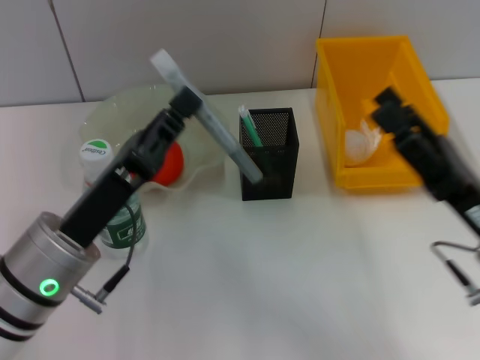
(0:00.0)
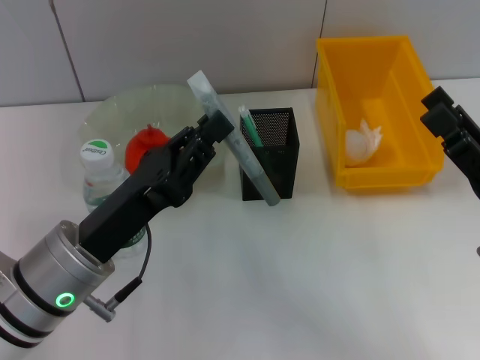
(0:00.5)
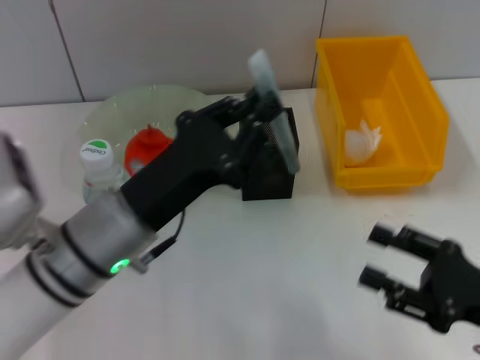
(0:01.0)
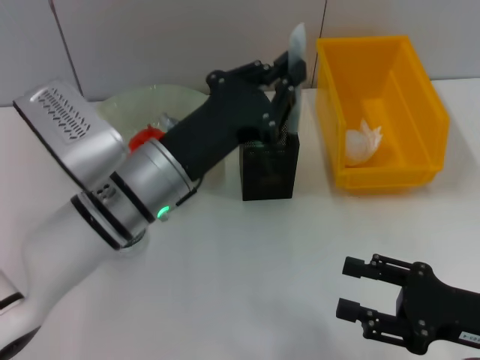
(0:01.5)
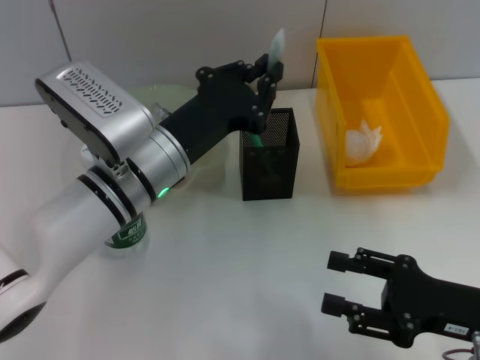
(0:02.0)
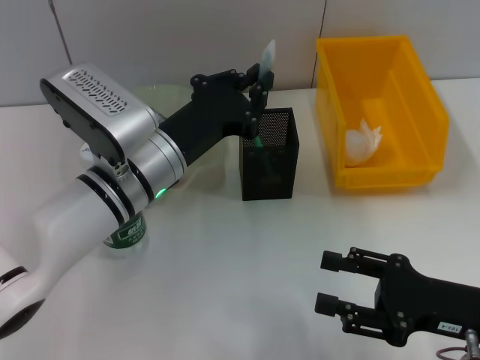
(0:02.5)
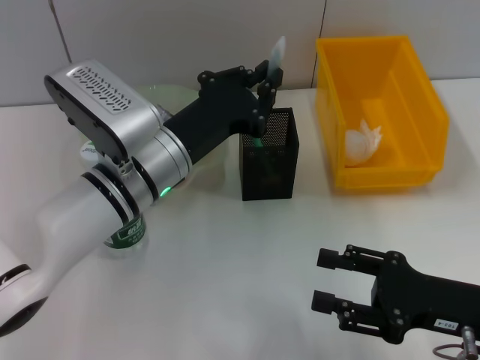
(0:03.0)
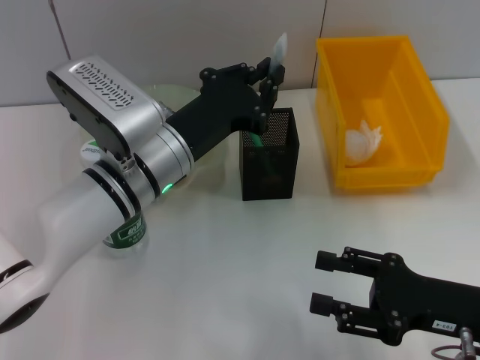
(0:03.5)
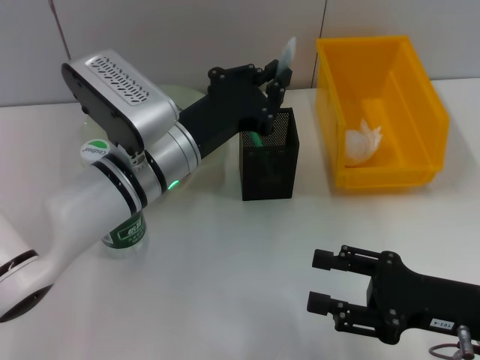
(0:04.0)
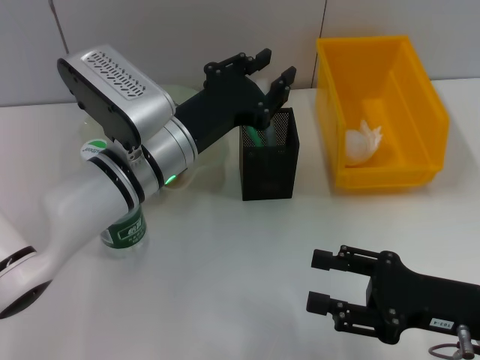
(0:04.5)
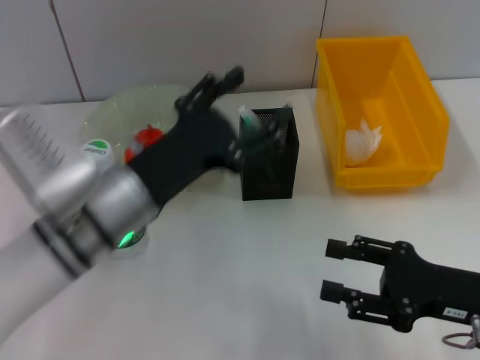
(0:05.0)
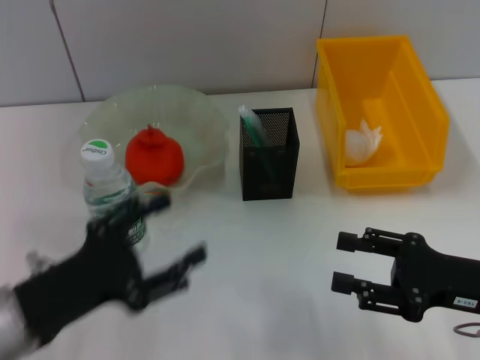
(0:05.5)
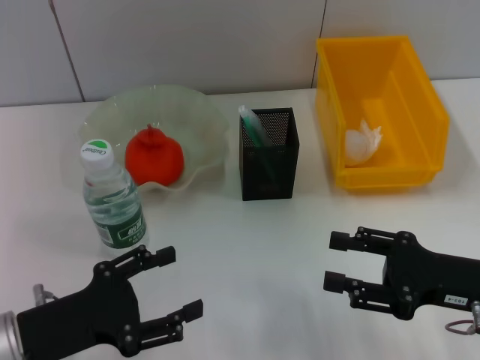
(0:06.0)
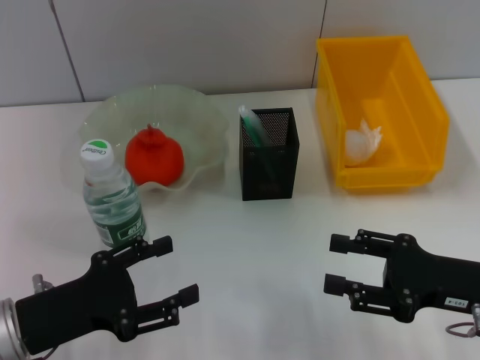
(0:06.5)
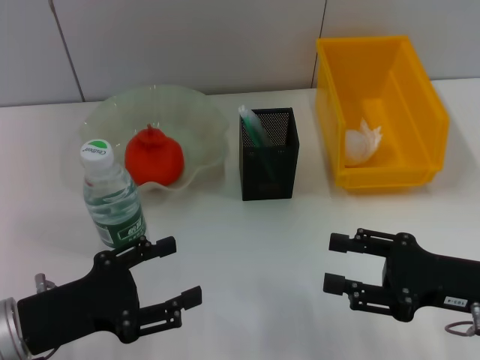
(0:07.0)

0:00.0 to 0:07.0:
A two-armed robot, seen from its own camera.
Step, 0:00.0 to 0:05.0: Place the gray glue into the pen holder with the left hand.
0:00.0 to 0:02.0: The right gripper changes place by approximately 5 cm; the left gripper travels forward and to the right by about 10 cm.
0:02.0 to 0:03.5: Both grippers stay put.
0:03.5 to 0:05.0: The left gripper ends up roughly 5 cm from where it was, and opens up.
0:05.0 to 0:07.0: The left gripper is displaced to the left and backward by about 15 cm.

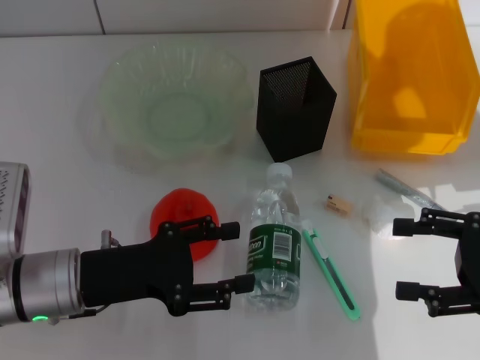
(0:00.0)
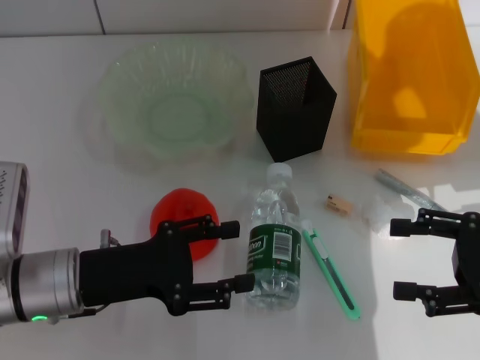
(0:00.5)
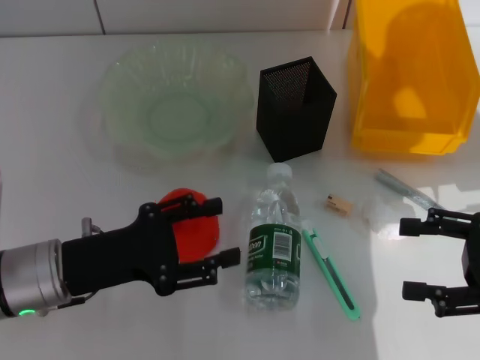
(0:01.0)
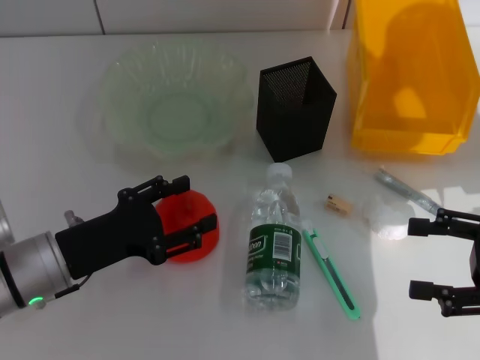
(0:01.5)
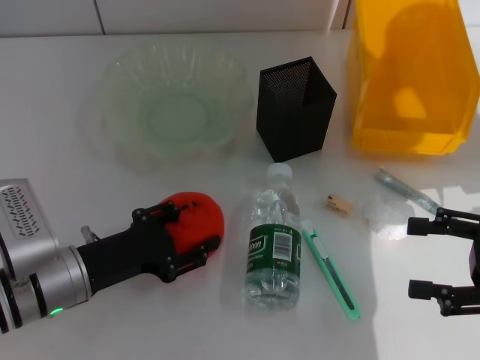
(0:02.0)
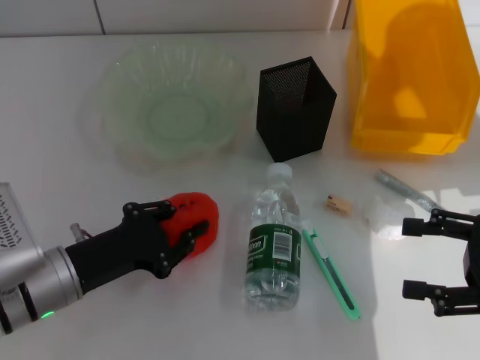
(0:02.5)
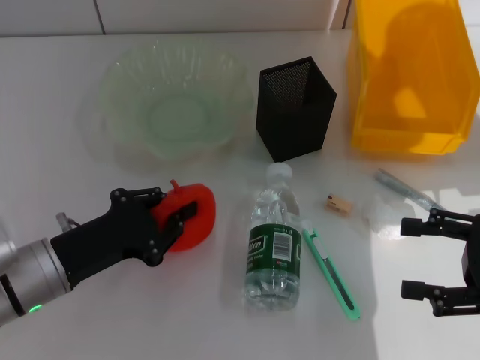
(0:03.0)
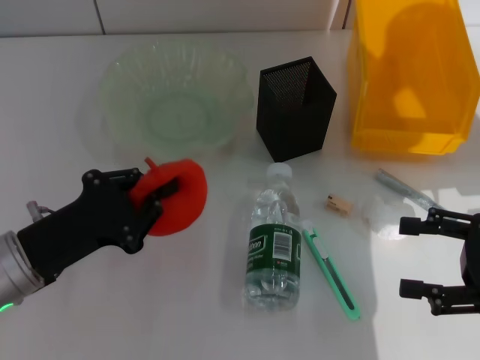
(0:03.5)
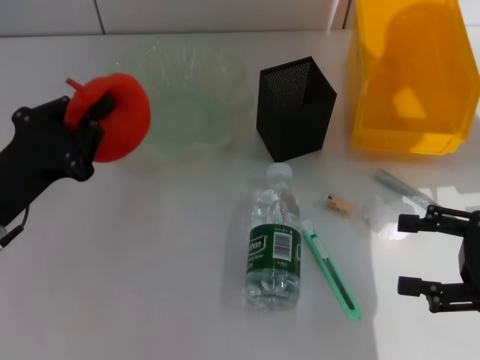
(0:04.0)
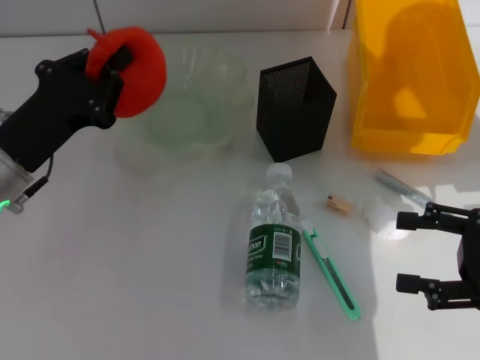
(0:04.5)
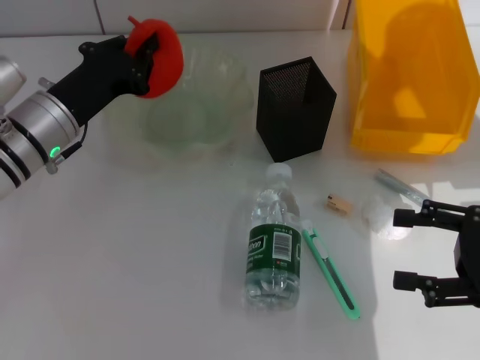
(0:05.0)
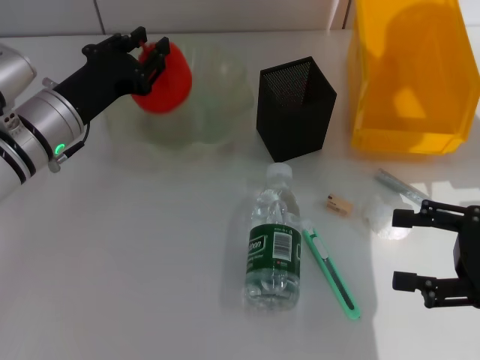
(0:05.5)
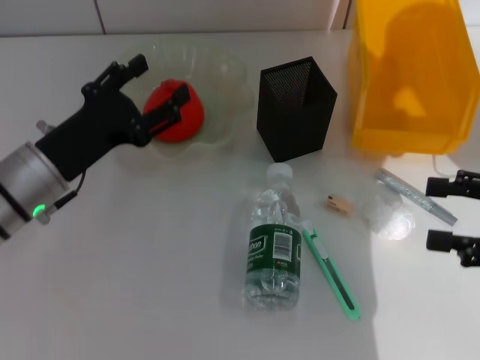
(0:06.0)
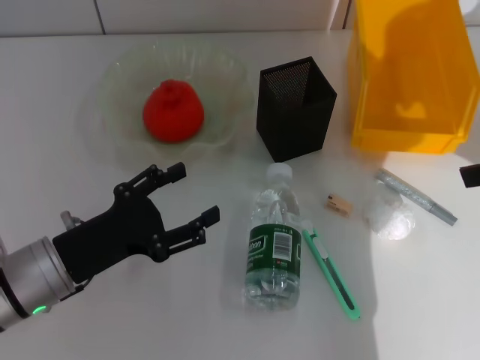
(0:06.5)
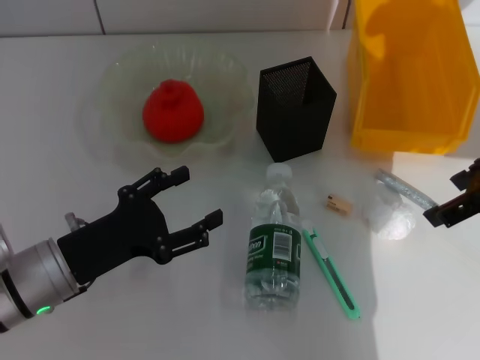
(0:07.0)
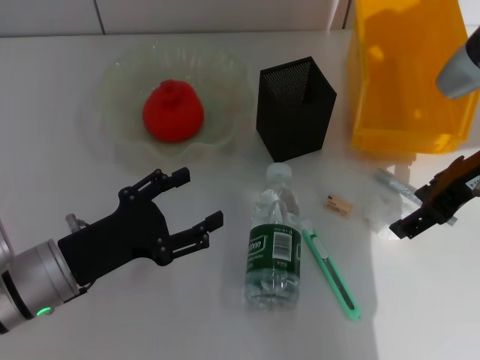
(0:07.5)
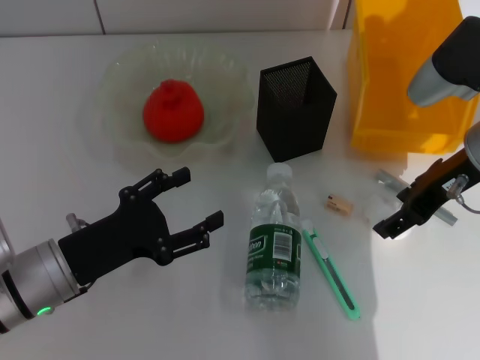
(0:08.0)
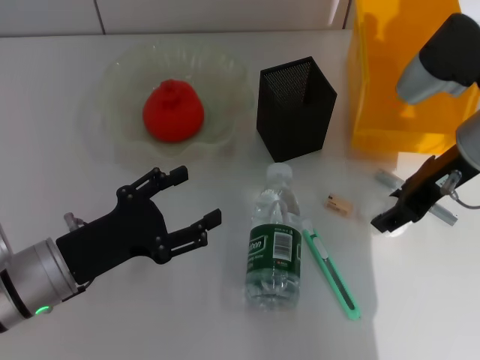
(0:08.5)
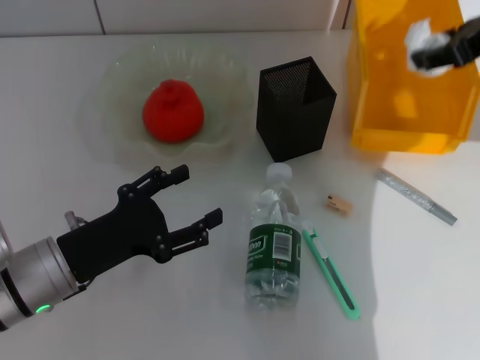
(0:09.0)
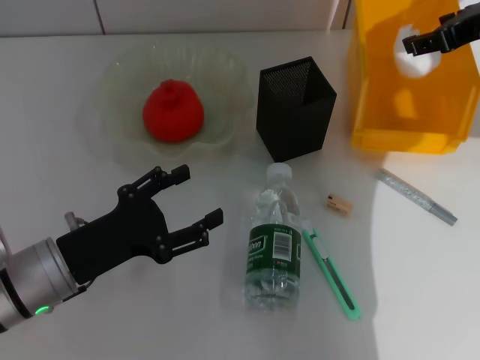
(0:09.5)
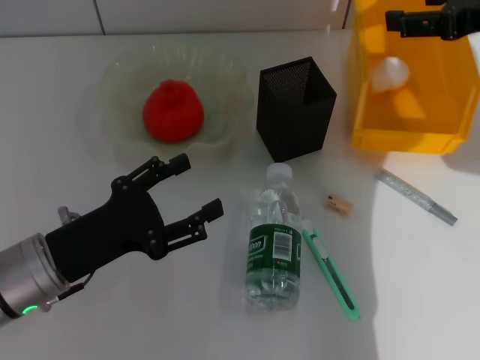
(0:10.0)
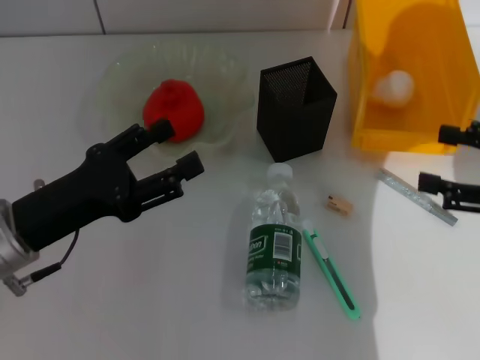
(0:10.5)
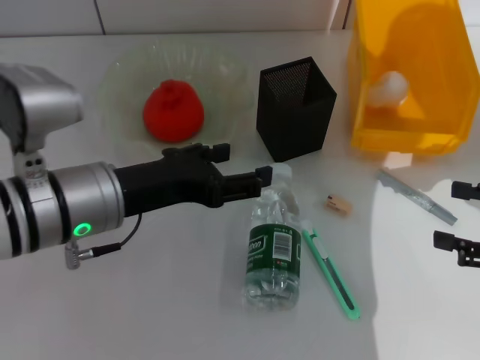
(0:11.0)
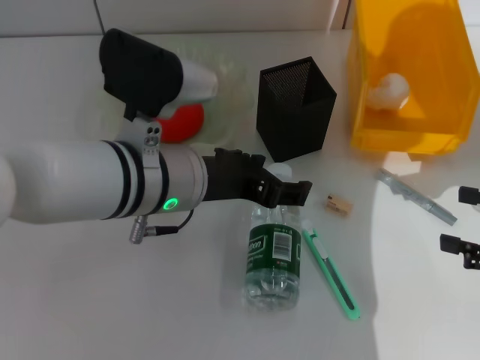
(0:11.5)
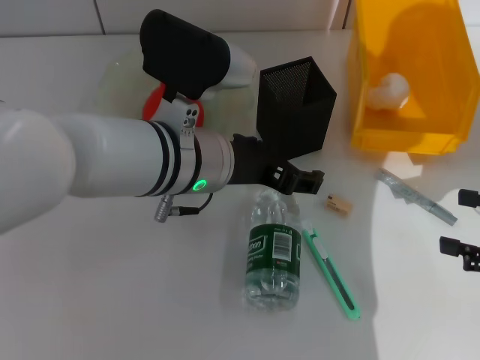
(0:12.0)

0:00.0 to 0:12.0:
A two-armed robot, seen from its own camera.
Step, 0:00.0 to 0:02.0: Grab the orange with the left hand.
Step, 0:02.5 to 0:05.5: Place the orange into the fruit bowl with the left hand.
Step, 0:06.0 to 0:08.0: Grab the paper ball with the right hand.
Step, 0:08.5 to 0:10.0: Place the paper ball into the trash can with the right hand.
0:02.0 to 0:04.0: The left gripper shifts about 5 cm upward, and closes its fingers.
0:04.0 to 0:06.0: The left gripper travels forward by roughly 5 cm, and opens up.
0:06.0 to 0:08.0: The right gripper moves to the left and forward, roughly 15 cm. Meanwhile the left gripper is displaced backward by about 5 cm.
0:08.0 to 0:10.0: The right gripper moves upward and to the right, approximately 10 cm, and closes and opens again.
0:10.0 to 0:12.0: The right gripper goes roughly 20 cm downward, backward and to the right. The left gripper moves to the right, upward and forward, roughly 20 cm.

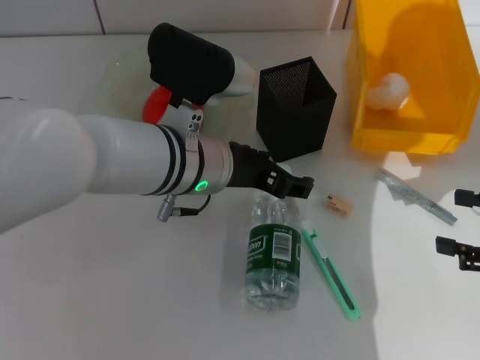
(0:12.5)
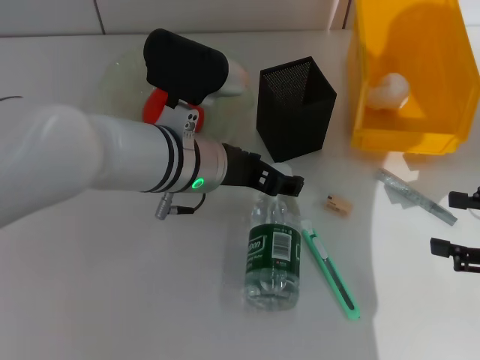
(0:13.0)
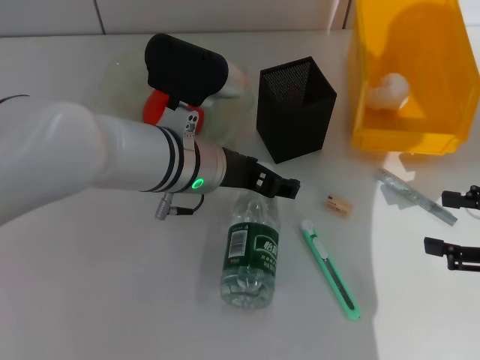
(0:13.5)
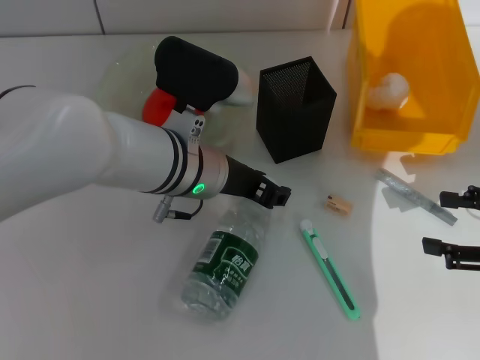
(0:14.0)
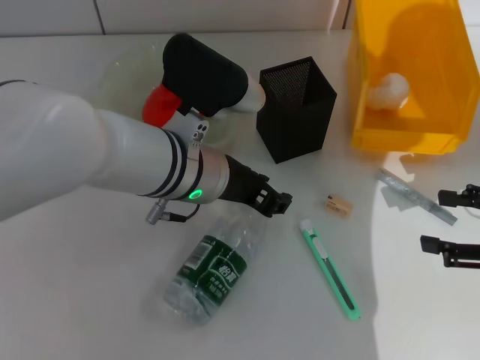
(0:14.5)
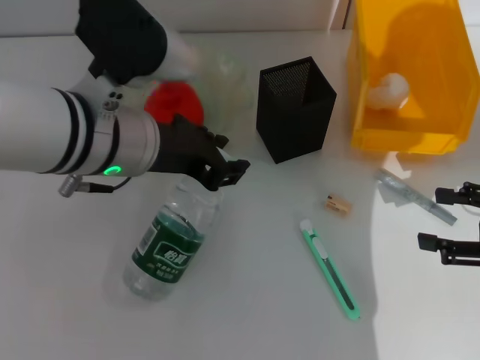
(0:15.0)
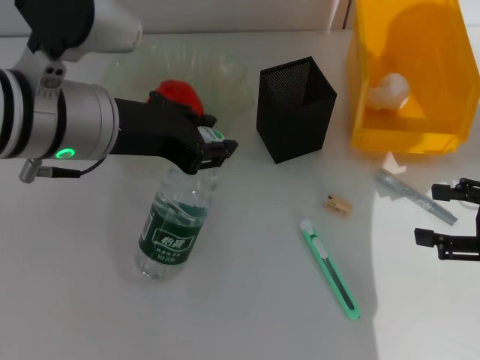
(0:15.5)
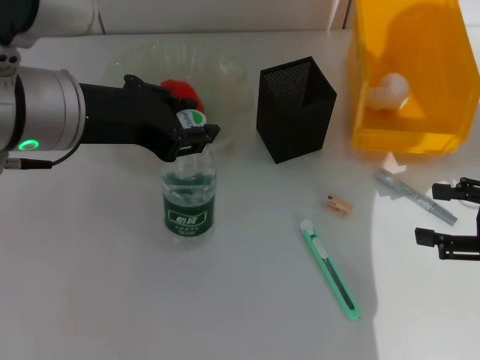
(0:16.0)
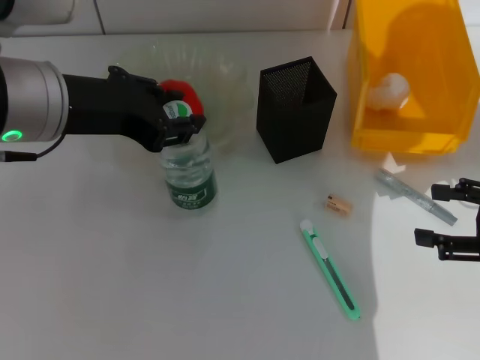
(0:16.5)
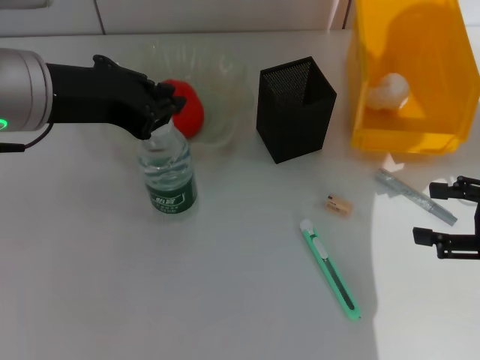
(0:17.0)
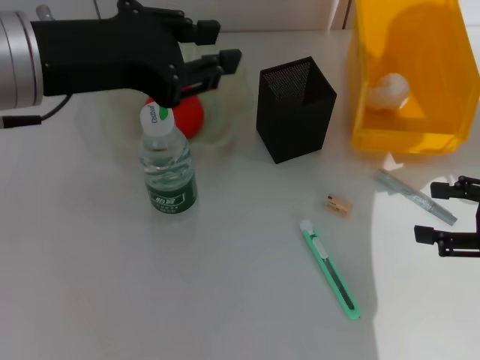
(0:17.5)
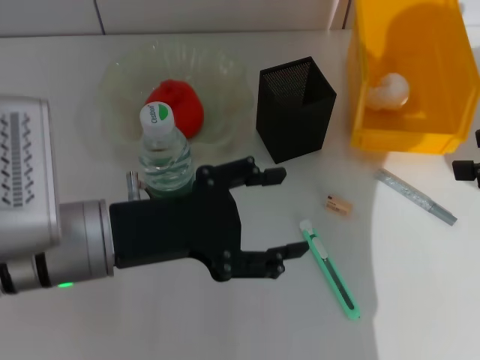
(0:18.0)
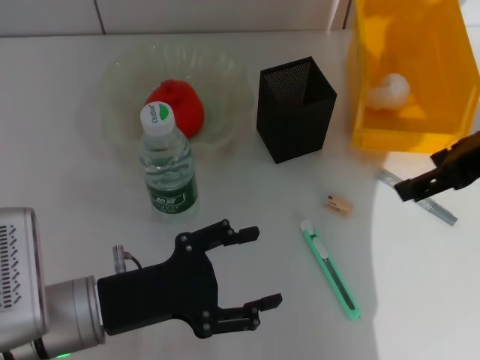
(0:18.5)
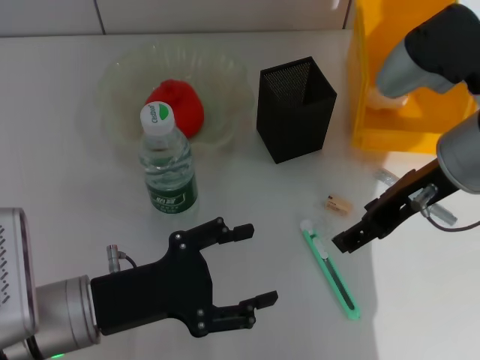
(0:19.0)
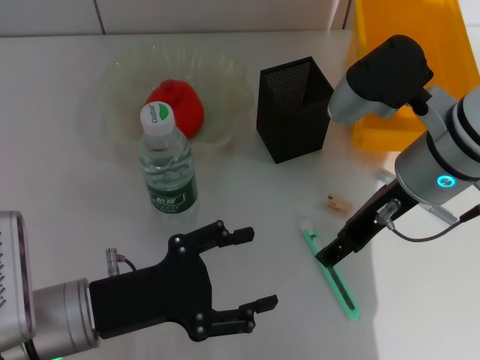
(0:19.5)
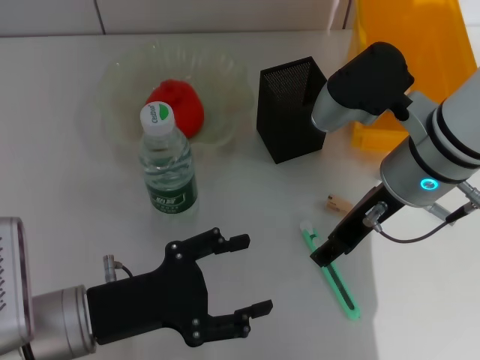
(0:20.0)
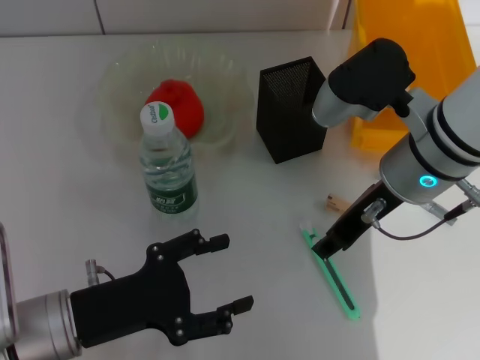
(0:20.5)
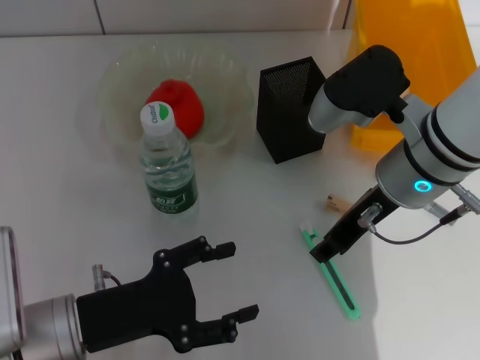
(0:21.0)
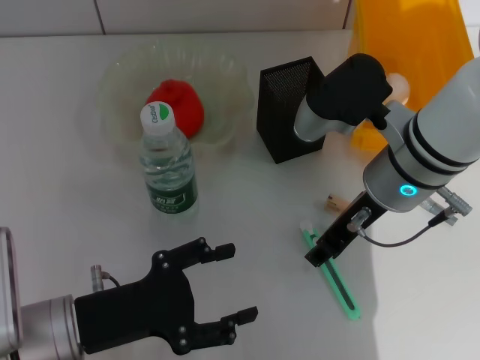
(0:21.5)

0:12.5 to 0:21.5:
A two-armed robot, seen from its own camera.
Step, 0:12.5 to 0:14.5: Grab the water bottle with the left hand.
Step, 0:15.0 to 0:17.0: Place the water bottle on the table with the left hand.
0:12.5 to 0:14.5: The left gripper closes.
0:14.5 to 0:17.0: The left gripper travels to the left and upward by some 15 cm.
0:17.0 to 0:19.5: The right gripper shifts about 20 cm to the left. The left gripper goes some 20 cm downward and backward, and opens its fingers.
0:19.5 to 0:21.5: The right gripper closes its fingers.
